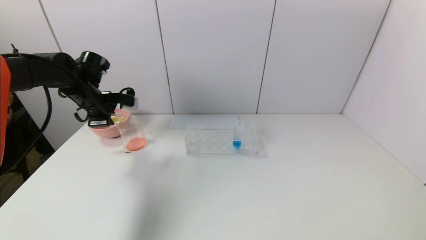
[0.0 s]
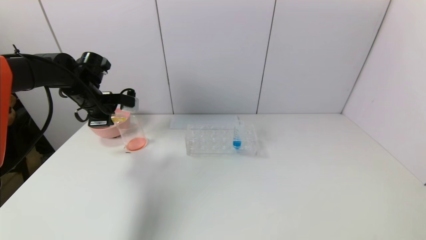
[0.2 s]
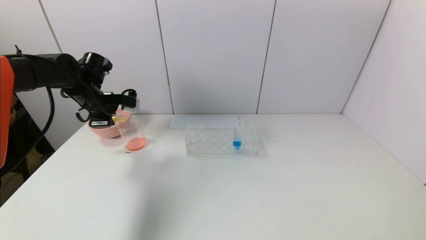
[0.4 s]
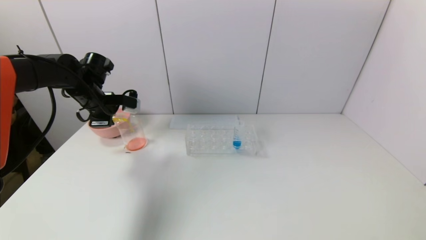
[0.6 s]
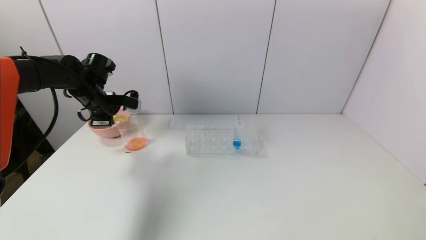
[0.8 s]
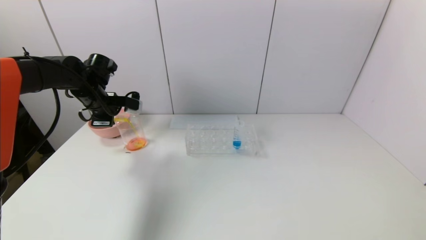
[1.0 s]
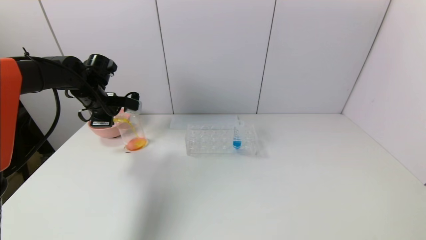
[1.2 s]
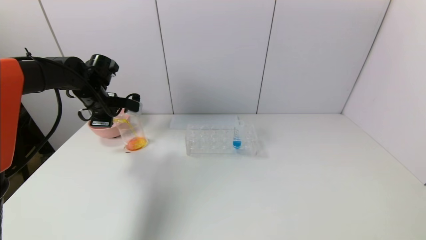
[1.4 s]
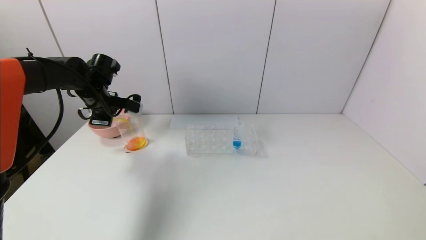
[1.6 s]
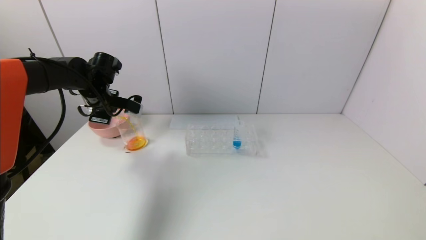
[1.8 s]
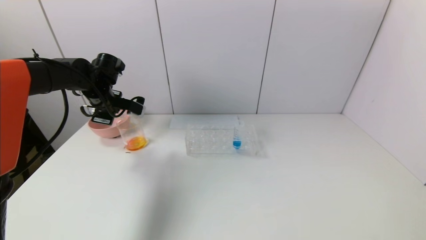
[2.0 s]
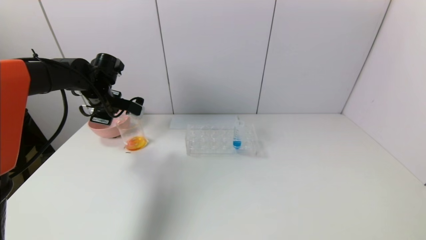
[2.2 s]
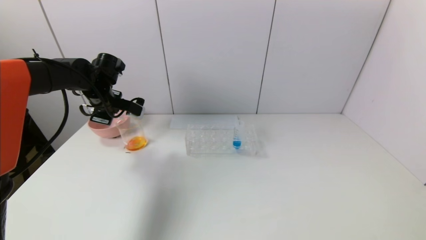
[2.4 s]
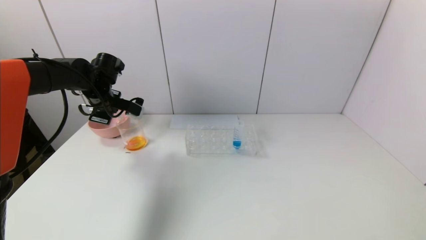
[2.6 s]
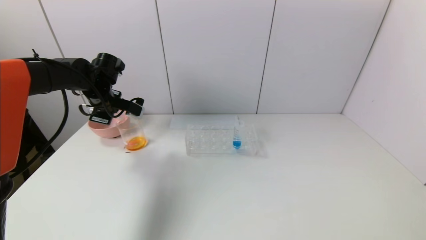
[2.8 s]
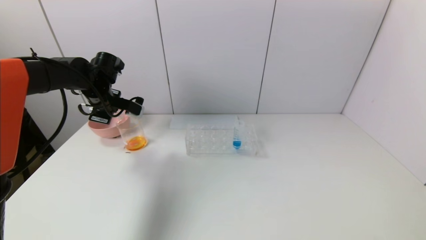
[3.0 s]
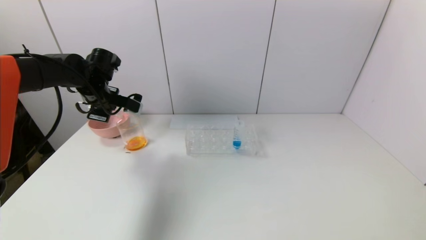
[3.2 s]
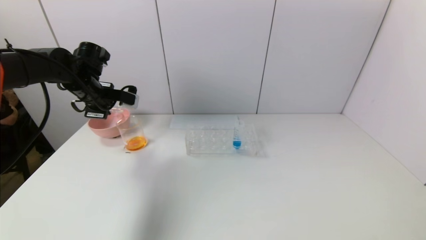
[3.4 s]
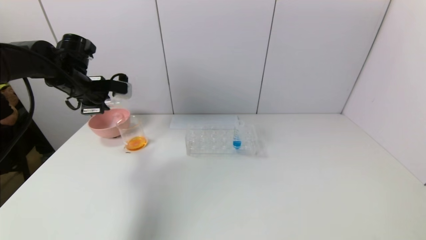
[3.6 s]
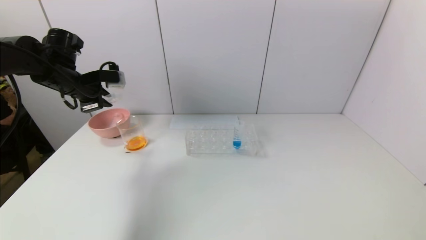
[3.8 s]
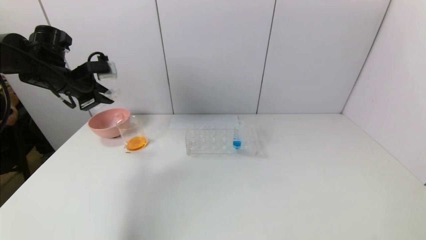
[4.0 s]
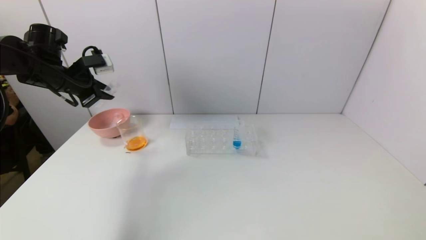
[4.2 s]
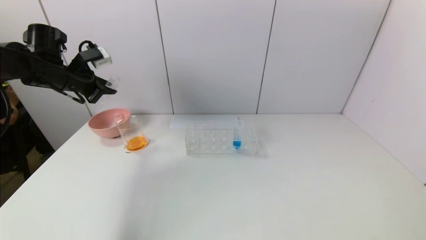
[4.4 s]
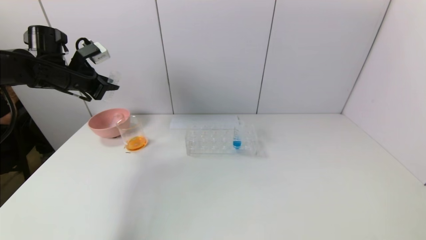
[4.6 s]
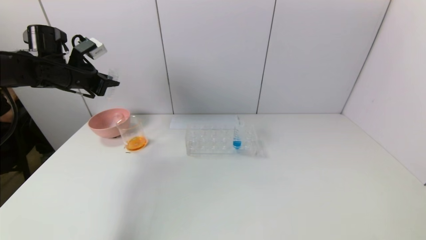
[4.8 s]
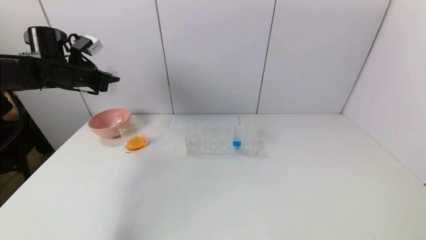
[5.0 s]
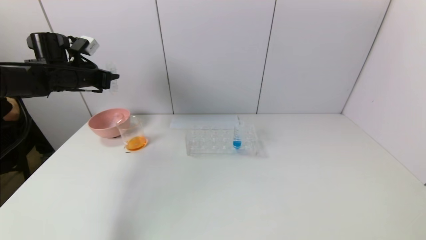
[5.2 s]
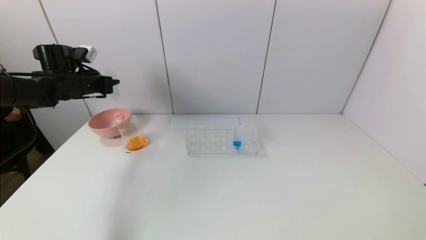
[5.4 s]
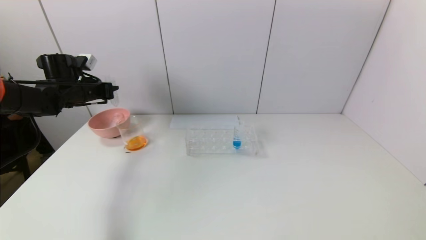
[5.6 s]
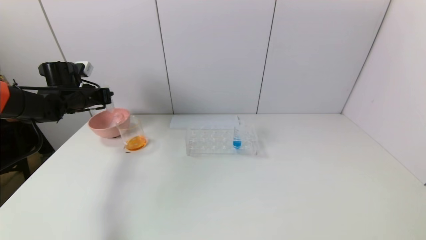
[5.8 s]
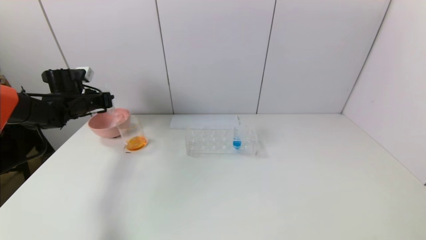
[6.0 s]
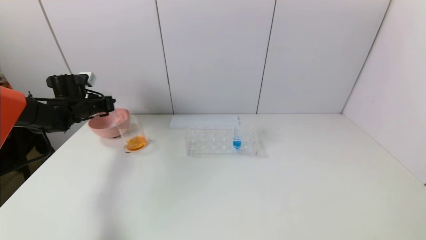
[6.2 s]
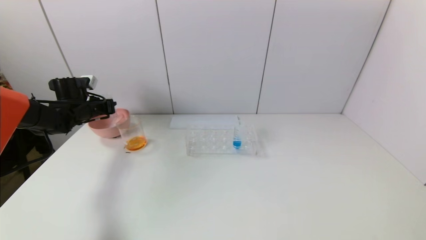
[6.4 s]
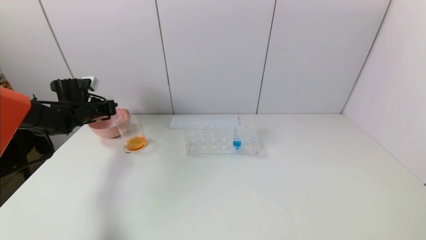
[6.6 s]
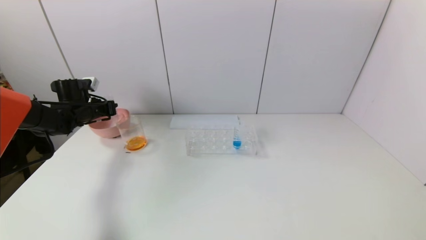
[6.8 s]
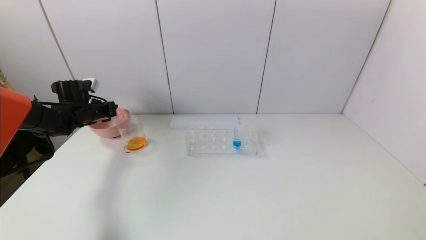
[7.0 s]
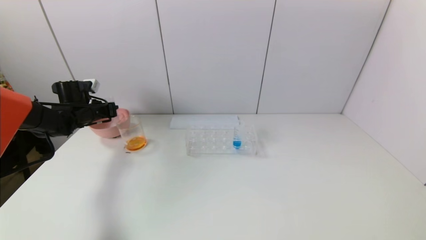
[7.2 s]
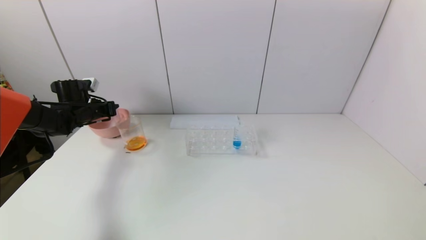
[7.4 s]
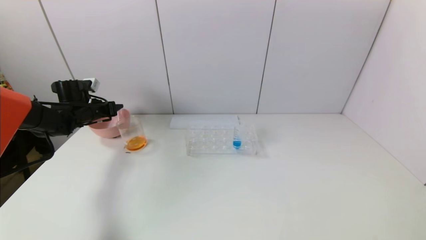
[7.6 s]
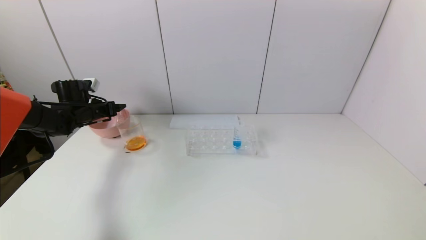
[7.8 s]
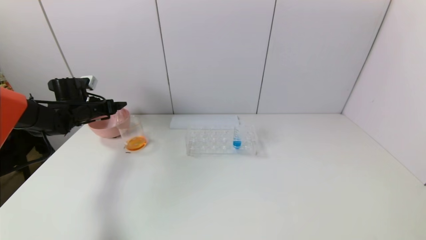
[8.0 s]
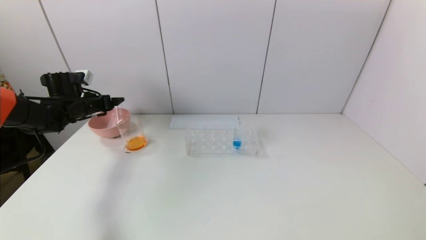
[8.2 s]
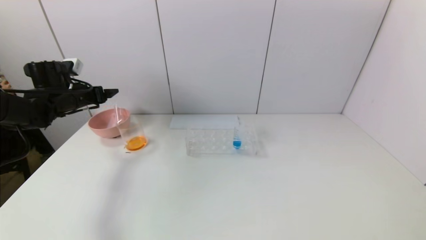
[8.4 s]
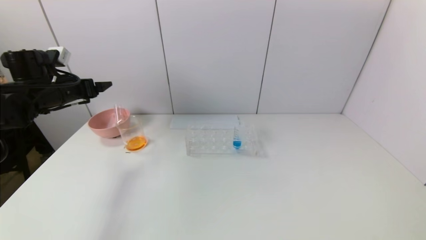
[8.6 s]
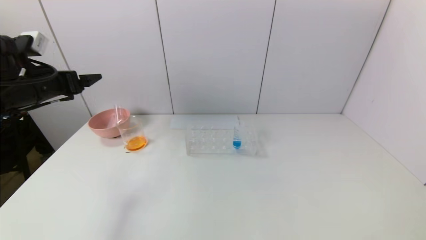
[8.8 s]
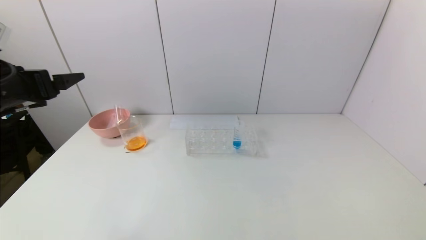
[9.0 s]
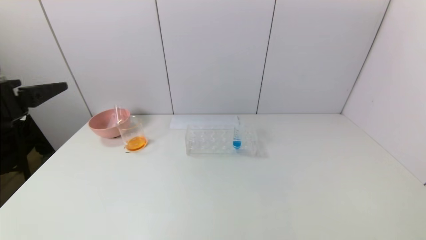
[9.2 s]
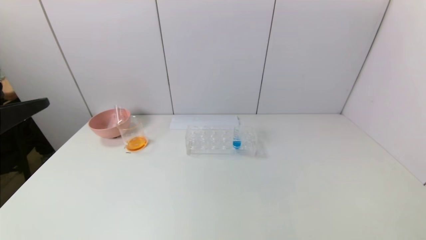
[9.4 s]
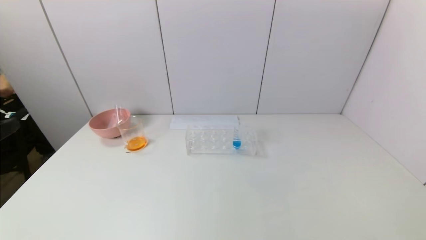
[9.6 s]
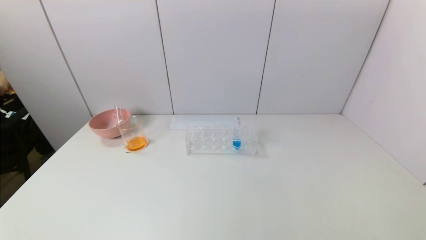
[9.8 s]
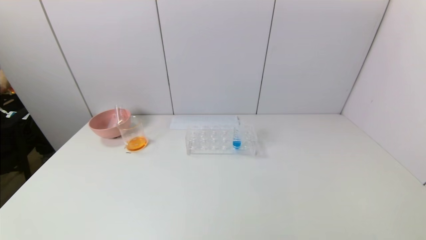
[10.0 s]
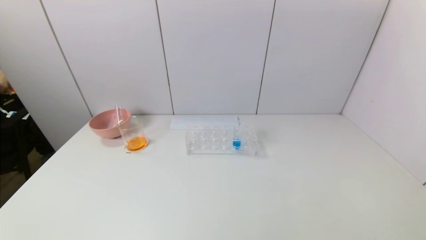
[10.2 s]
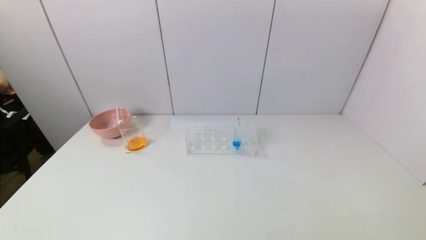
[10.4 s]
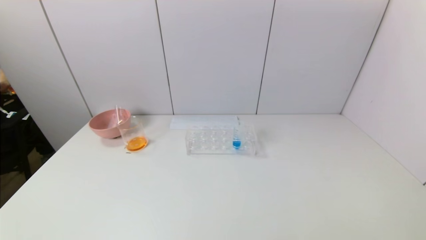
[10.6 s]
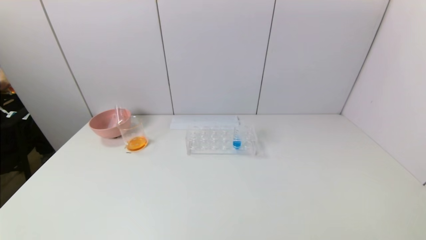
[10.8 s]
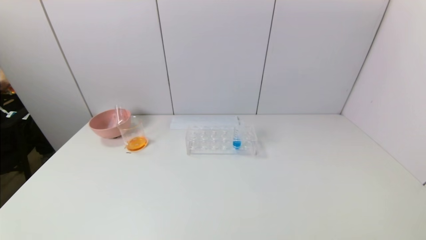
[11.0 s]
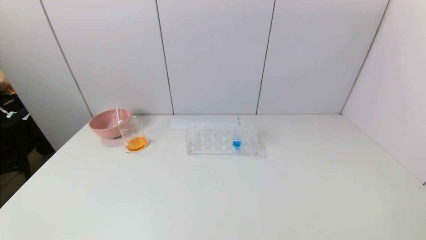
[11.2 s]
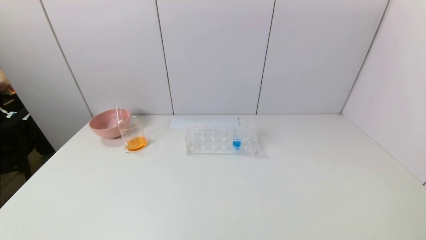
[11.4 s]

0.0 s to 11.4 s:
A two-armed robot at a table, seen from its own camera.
Task of the whole recording: pick up the test tube with yellow pigment and the test tube with red pigment by grippers and pour them into the beaker.
Step, 0.0 to 2.4 s: Pour the yellow reagent into the graduated cylinder with the left gripper.
Step, 2.6 to 7.8 s: Place the test tube into the pink bowl with the left gripper.
0.0 to 1.4 s: The grippers make only small movements.
1.4 to 2.8 s: There are only small adjustments of the grippers.
2.8 to 4.2 s: The left gripper moves to the left and upward, roughly 10 cm.
4.2 to 5.6 s: The left gripper travels downward by approximately 5 cm.
5.6 to 7.2 s: The left gripper goes about 5 cm downward.
7.2 to 8.6 s: The left gripper heads upward and backward, covering approximately 15 cm, and opens up.
8.6 to 10.0 s: The left gripper moves backward, approximately 40 cm.

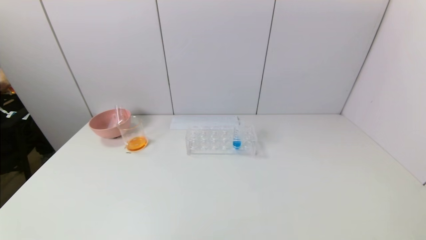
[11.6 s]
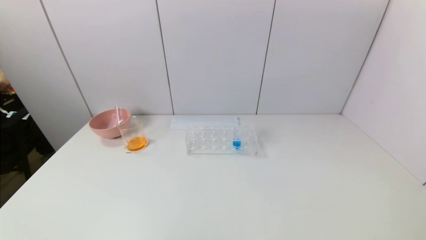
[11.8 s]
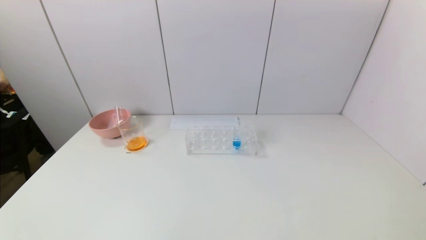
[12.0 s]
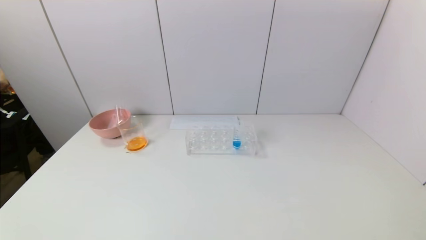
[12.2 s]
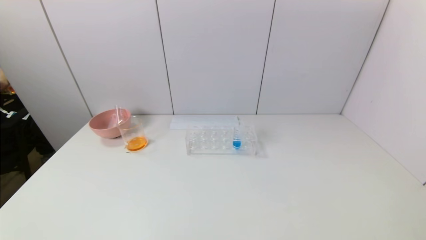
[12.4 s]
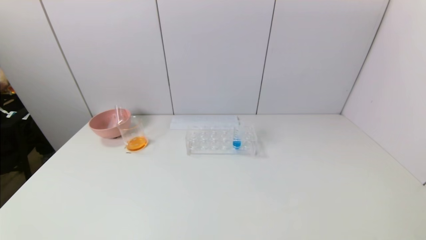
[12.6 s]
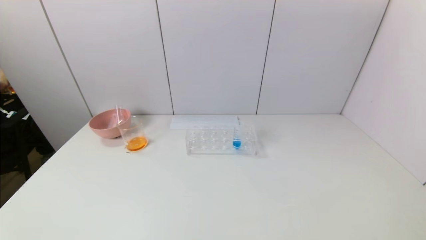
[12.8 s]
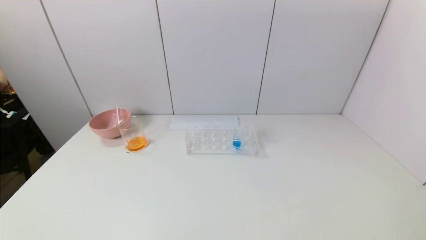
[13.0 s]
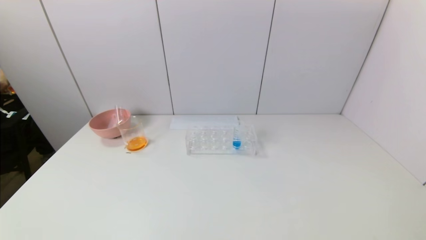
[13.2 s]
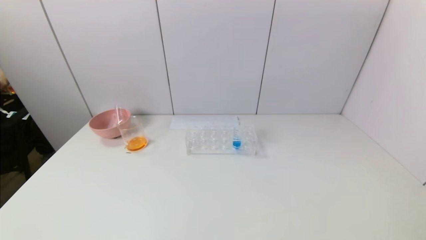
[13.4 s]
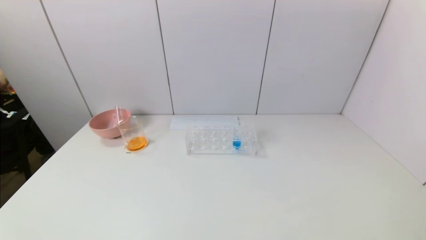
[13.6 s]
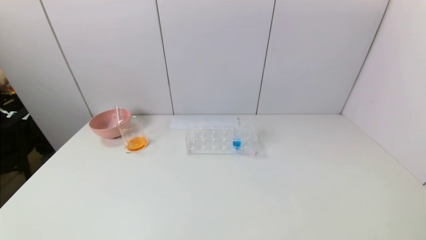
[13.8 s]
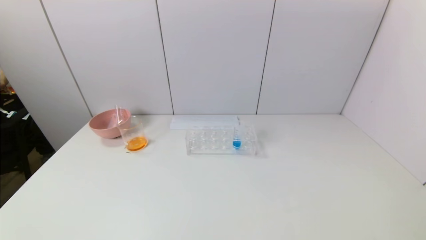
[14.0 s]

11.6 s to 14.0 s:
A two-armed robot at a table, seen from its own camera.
Task of the whole recording: pick up the test tube with yellow pigment and the test tube with red pigment by grippers and pour them into the beaker.
12.8 to 14.0 s: Neither gripper changes place.
